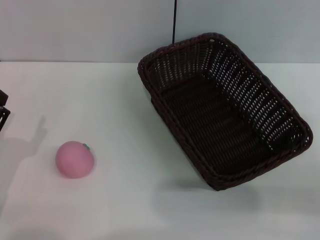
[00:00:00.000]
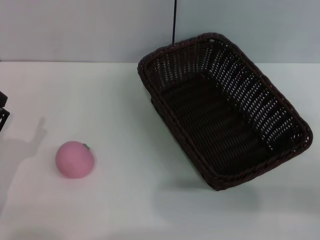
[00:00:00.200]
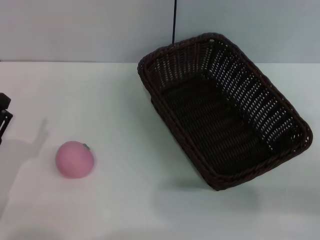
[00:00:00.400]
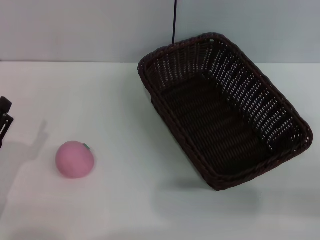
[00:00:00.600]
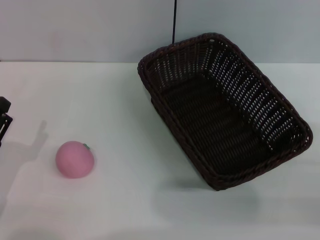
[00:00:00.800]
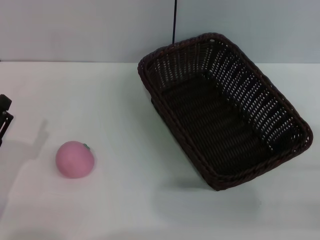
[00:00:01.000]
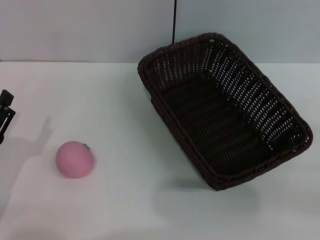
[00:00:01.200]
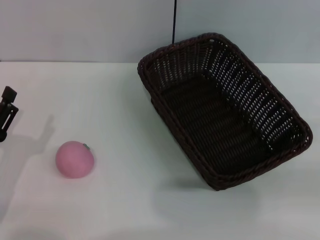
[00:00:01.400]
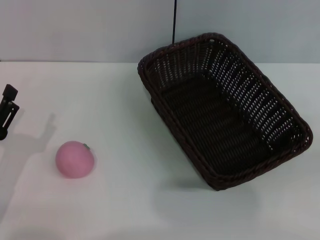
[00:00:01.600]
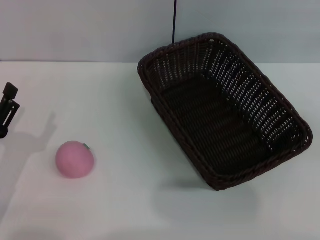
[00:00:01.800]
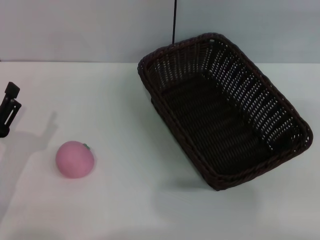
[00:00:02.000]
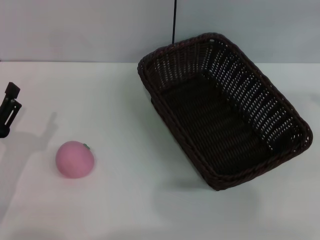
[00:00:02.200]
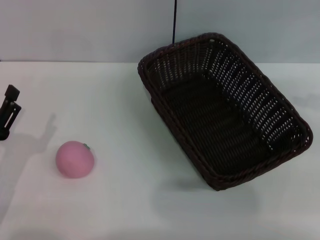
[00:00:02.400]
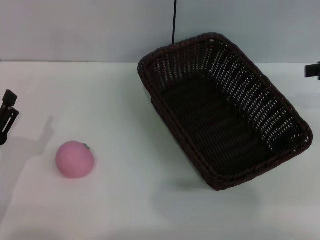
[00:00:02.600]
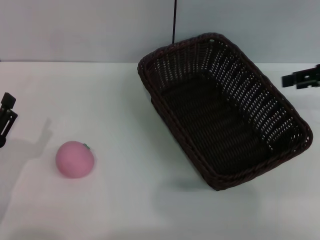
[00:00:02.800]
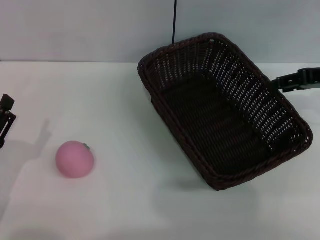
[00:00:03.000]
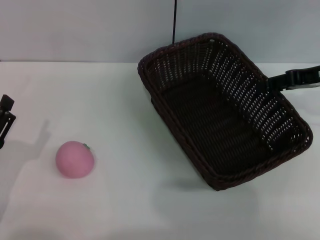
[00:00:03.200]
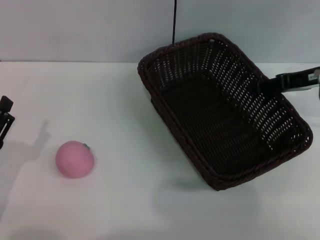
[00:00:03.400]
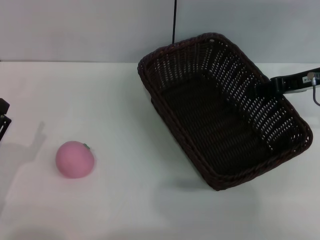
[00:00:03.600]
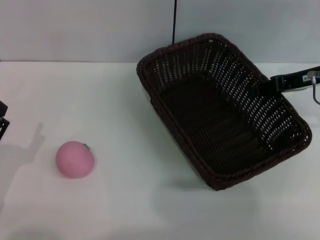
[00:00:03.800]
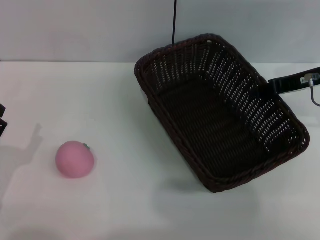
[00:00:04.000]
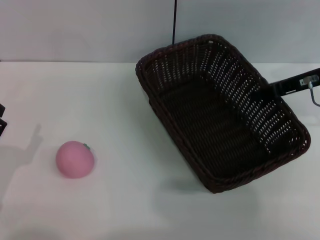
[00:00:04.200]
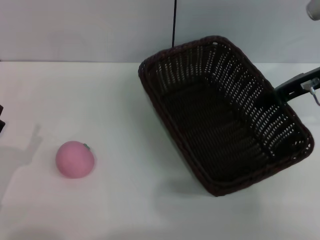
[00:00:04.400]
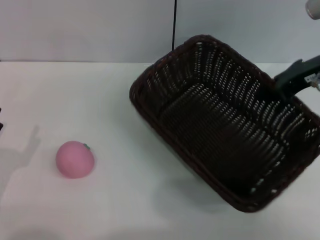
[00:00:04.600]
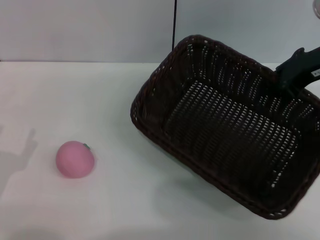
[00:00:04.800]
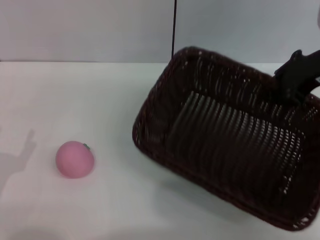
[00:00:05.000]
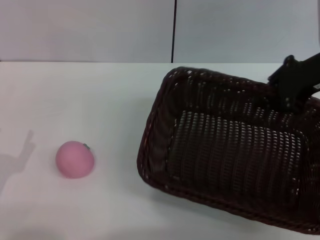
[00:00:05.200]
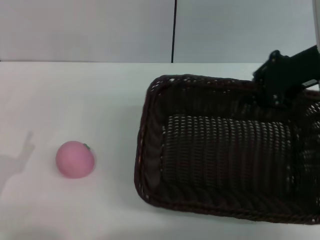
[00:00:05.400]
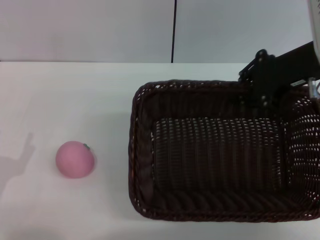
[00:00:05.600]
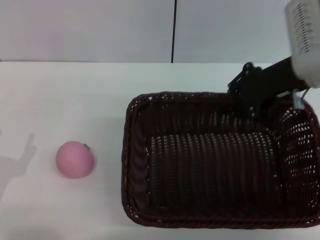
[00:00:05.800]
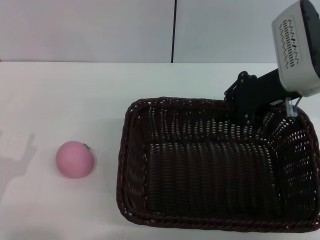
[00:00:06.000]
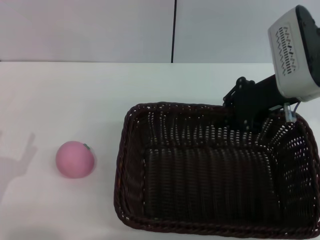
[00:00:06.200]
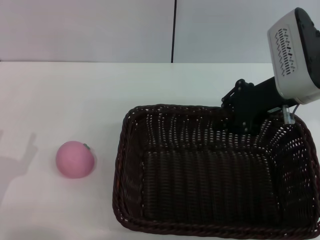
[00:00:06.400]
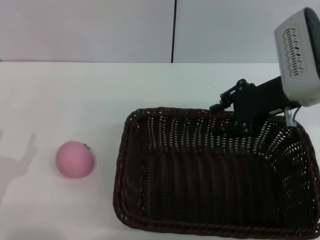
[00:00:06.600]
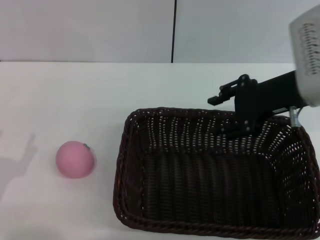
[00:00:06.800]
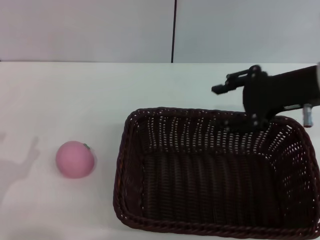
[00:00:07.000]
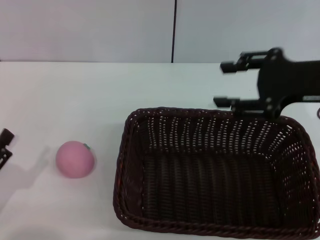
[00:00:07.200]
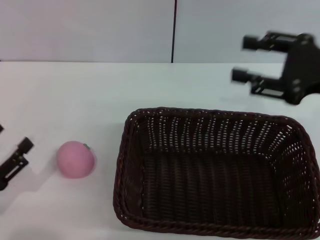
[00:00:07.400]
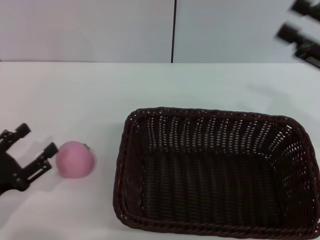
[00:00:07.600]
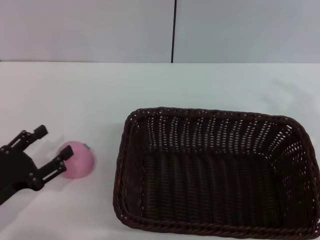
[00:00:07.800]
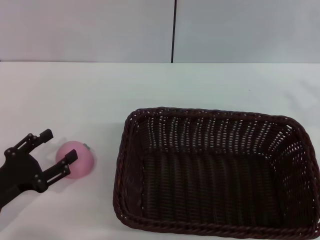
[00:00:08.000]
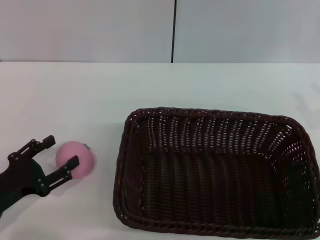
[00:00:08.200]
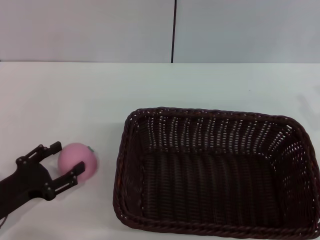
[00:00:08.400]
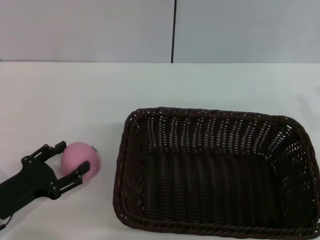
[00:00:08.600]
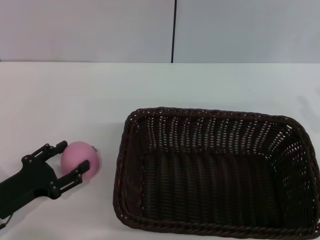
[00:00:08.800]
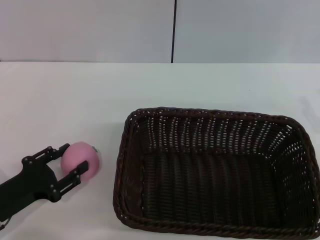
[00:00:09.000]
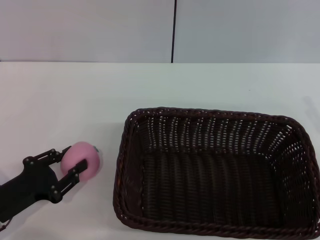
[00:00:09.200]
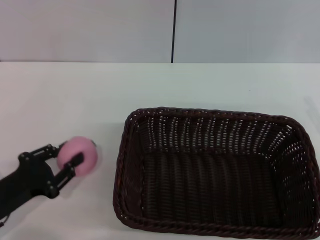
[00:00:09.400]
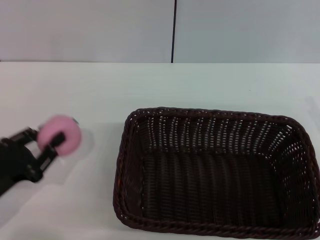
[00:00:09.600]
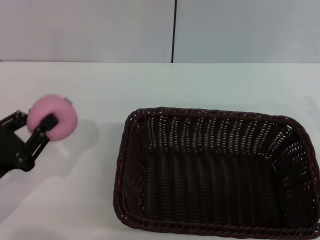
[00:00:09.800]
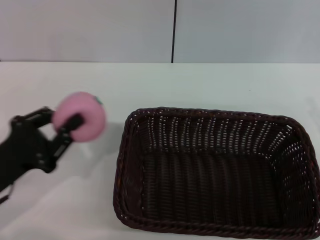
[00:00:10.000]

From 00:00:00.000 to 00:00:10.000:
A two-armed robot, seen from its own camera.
Step, from 00:00:00.000 to 00:00:04.800: Pick up the dark basket with the right gripper.
Step, from 00:00:05.000 to 00:00:07.200: Place the dark basket in the center of view with the right gripper.
Step, from 00:00:07.400 to 00:00:09.800: Pick up the peach with the left gripper.
From 00:00:01.400 to 00:00:02.800: The right gripper is displaced forward and to the left by roughly 20 cm.
From 00:00:02.800 to 00:00:04.200: The right gripper moves to the left, some 5 cm, and closes.
From 00:00:04.200 to 00:00:05.800: The right gripper moves to the left, about 5 cm.
From 00:00:05.800 to 00:00:07.200: The right gripper shifts some 5 cm backward, and opens.
From 00:00:07.200 to 00:00:08.600: The left gripper heads forward, covering about 5 cm, while the right gripper shifts some 15 cm downward, to the right and backward.
From 00:00:08.600 to 00:00:10.000: The left gripper travels upward by about 5 cm, and closes.

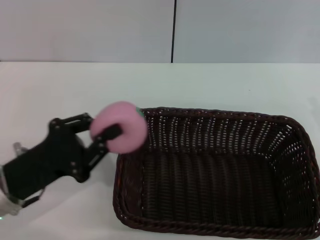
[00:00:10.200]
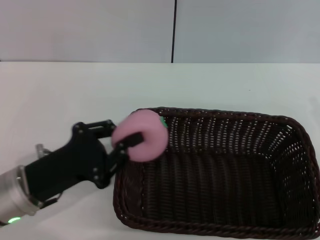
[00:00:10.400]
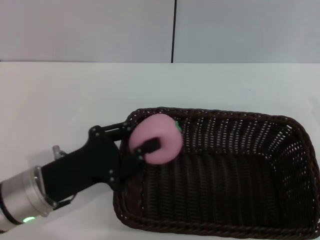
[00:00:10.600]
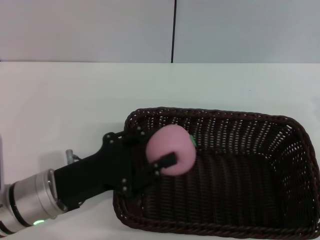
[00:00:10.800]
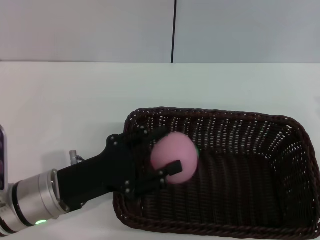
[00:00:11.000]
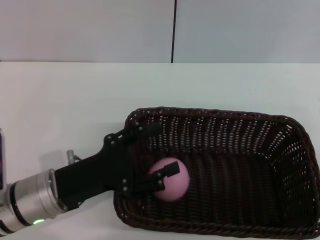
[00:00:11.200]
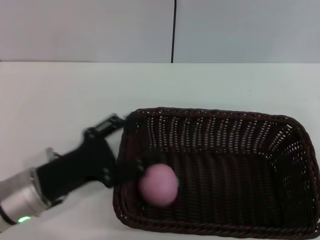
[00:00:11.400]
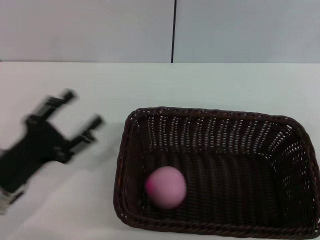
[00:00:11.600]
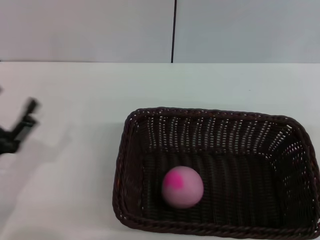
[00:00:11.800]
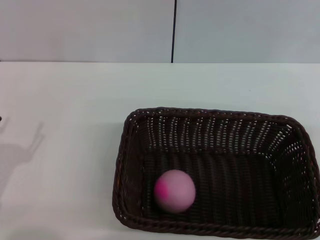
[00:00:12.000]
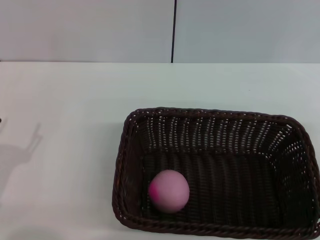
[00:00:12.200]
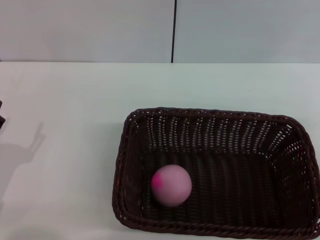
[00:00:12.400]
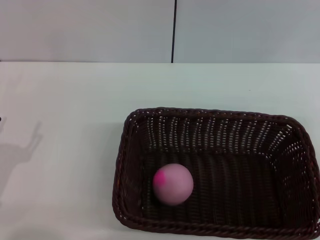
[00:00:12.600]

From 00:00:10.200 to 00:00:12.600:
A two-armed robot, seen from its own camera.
Step, from 00:00:10.200 to 00:00:11.400: Place the peach into the basket with the left gripper.
From 00:00:10.200 to 00:00:11.400: The left gripper opens its fingers.
From 00:00:11.400 to 00:00:12.600: The left gripper moves to the left and backward, approximately 10 cm.
